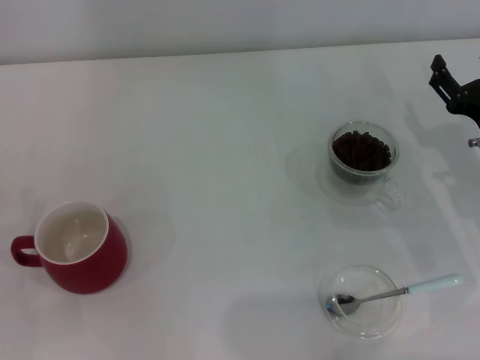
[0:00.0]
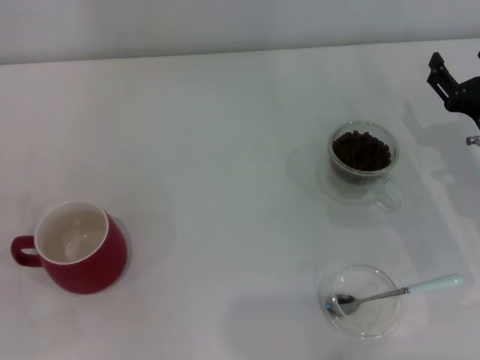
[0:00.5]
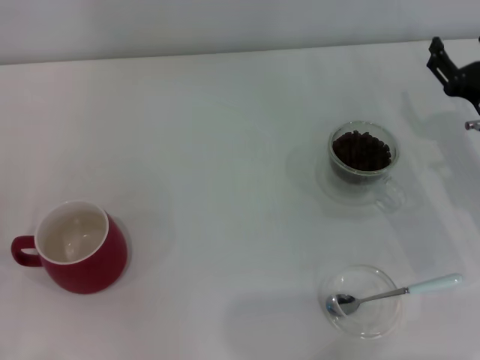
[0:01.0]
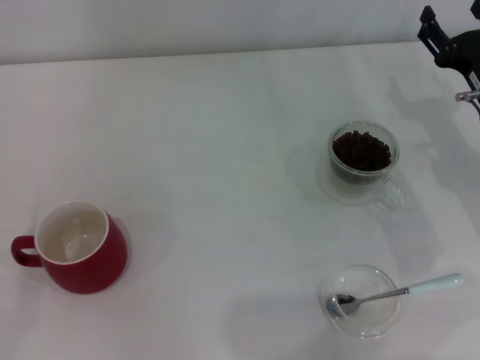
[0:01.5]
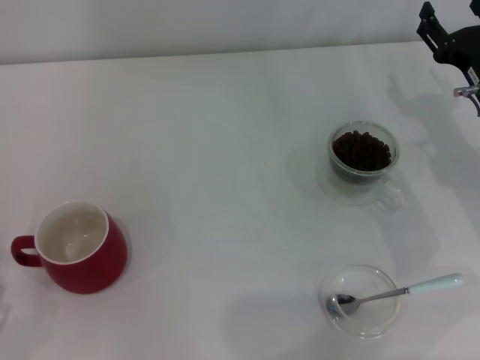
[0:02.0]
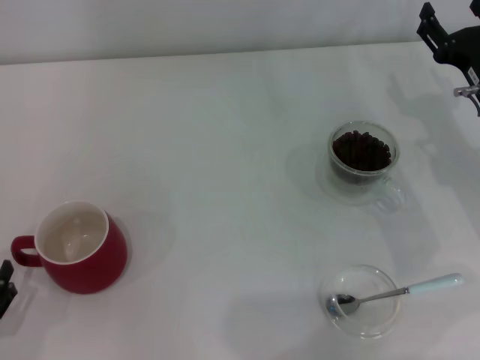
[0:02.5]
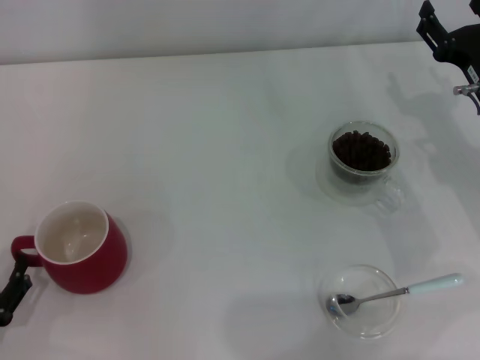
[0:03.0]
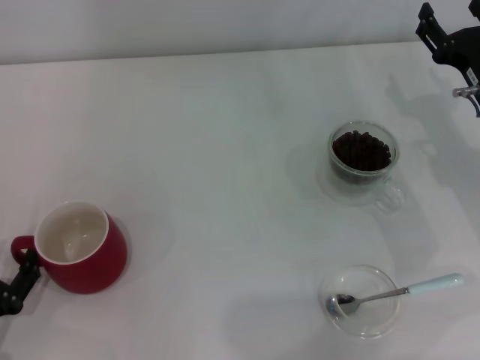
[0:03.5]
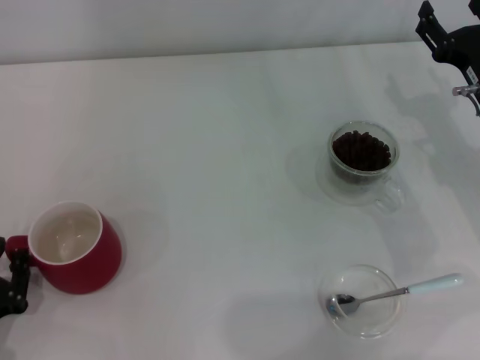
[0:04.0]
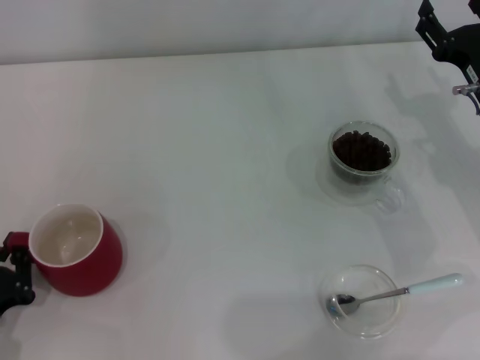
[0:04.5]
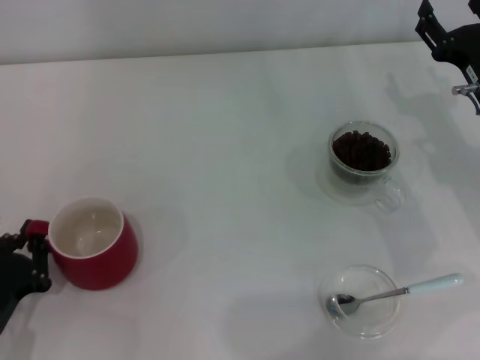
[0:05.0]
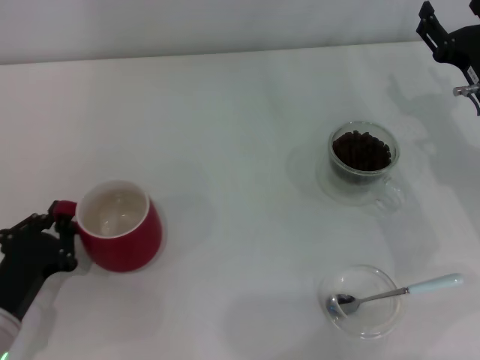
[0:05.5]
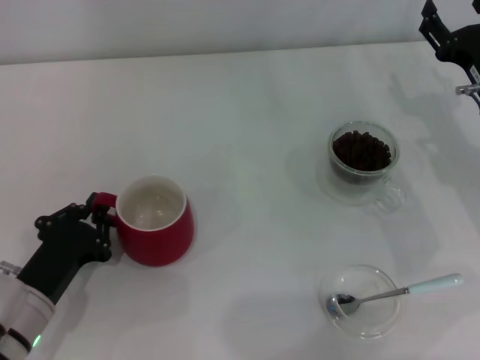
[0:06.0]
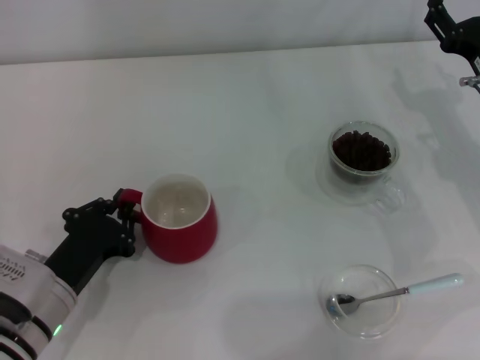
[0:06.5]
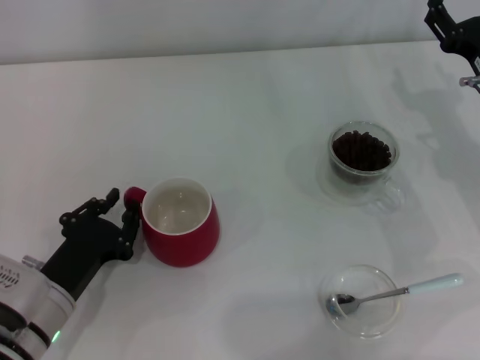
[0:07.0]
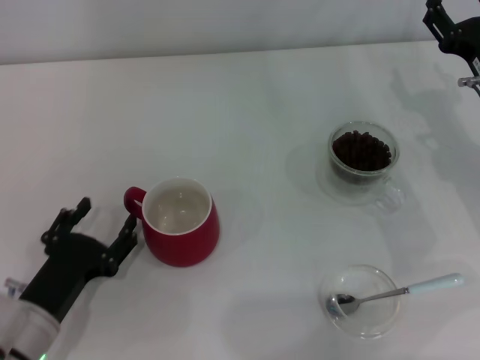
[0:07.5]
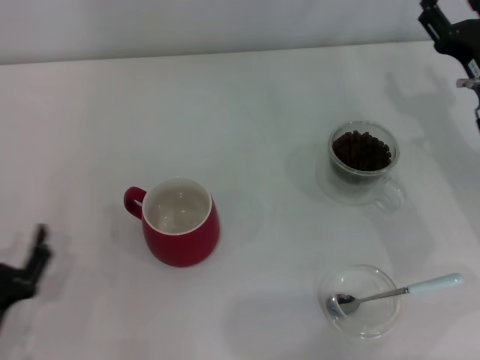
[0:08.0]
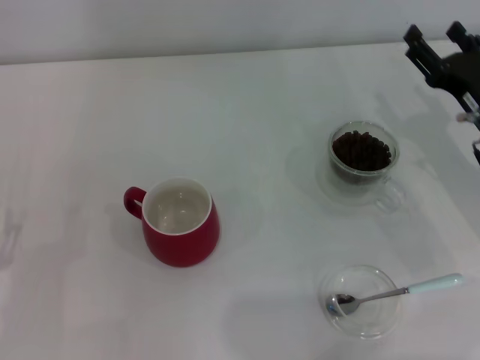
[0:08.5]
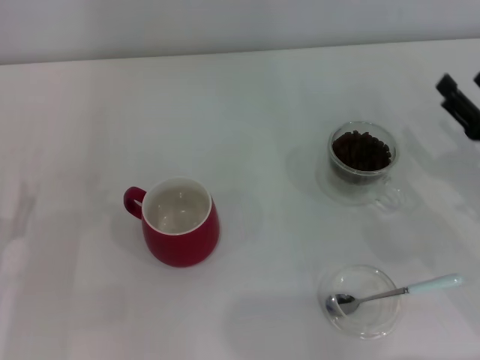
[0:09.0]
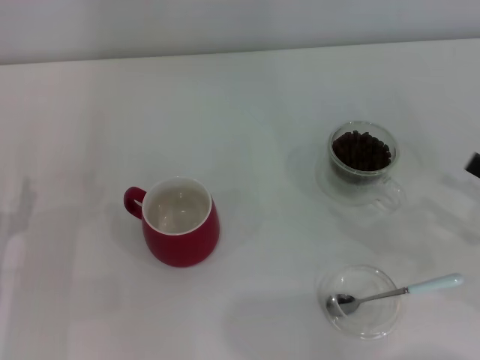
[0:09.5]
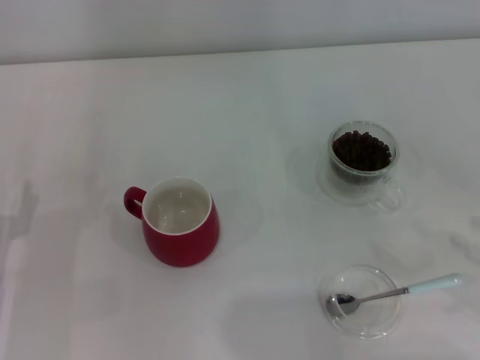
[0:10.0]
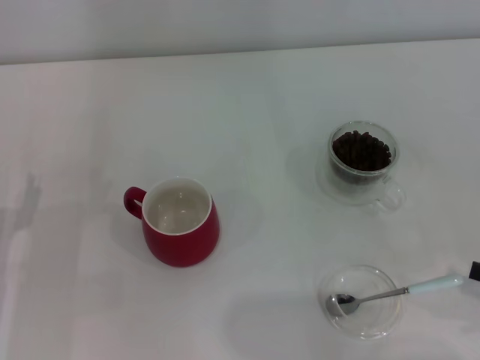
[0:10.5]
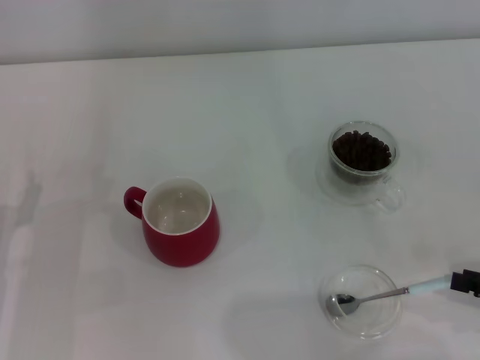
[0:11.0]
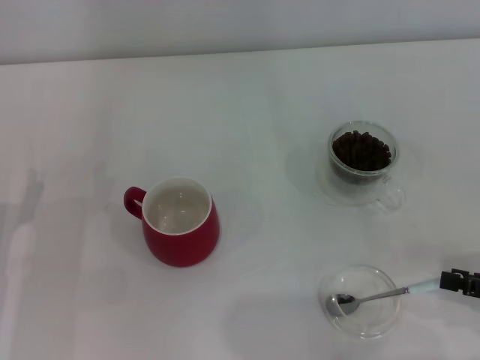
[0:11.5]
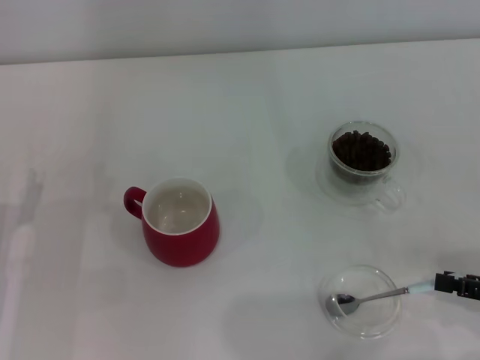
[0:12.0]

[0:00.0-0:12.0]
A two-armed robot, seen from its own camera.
Task of the whole recording: Use a blue spoon to take out the coffee beans from the glass and pour them into the red cup.
Step, 0:00.0 to 0:07.5: Move the cup to the center of view with the left gripper.
0:00.0 to 0:02.0: The right gripper moves roughly 5 cm.
0:02.0 to 0:04.0: The left gripper travels forward by about 5 cm, and closes.
0:04.0 to 0:06.0: The left gripper heads to the right and forward, covering approximately 10 cm, and closes.
0:06.0 to 0:08.0: The left gripper goes about 5 cm backward, and opens its fingers.
0:08.0 to 0:10.0: The right gripper heads backward and to the right, covering roughly 20 cm. Meanwhile the left gripper goes roughly 5 cm forward.

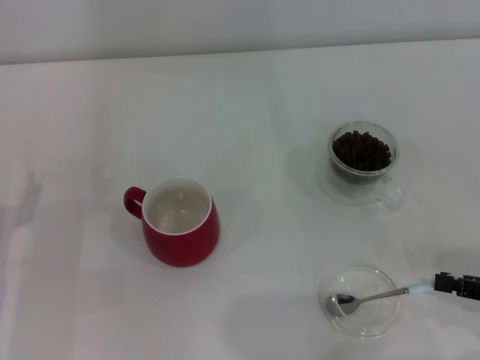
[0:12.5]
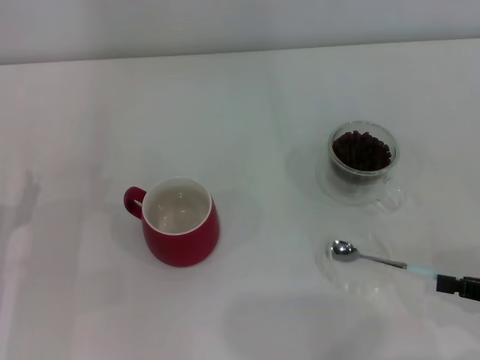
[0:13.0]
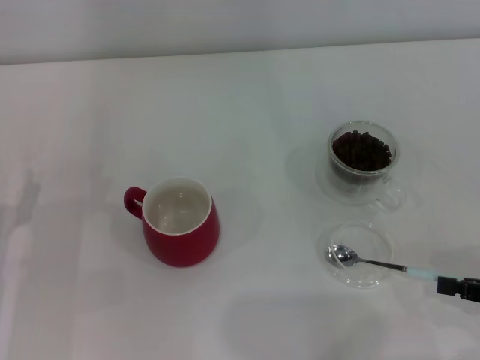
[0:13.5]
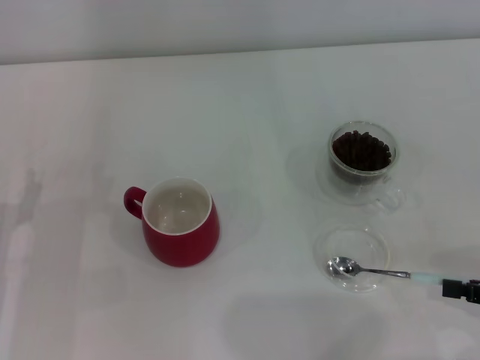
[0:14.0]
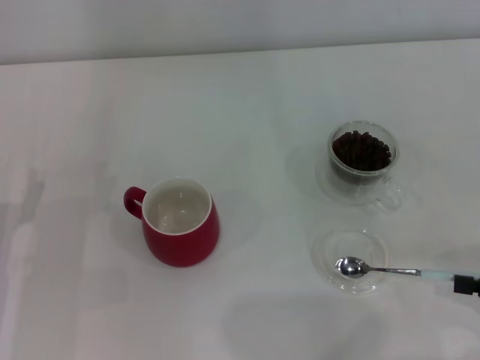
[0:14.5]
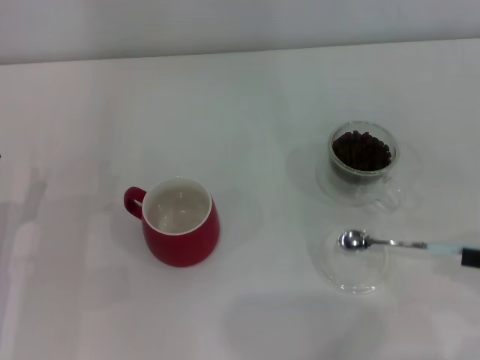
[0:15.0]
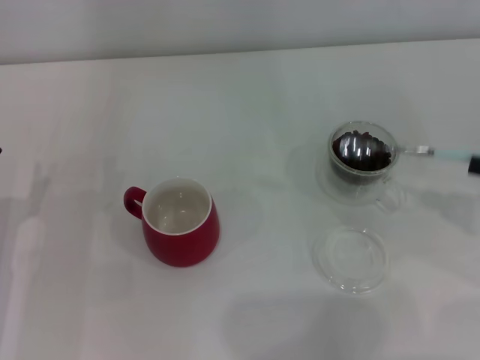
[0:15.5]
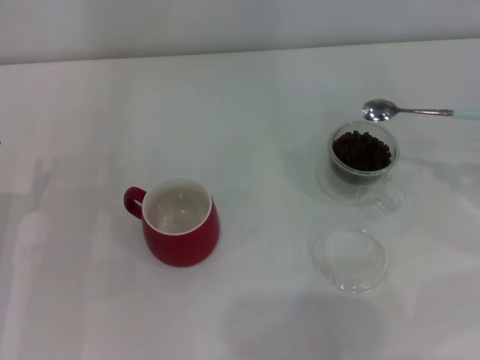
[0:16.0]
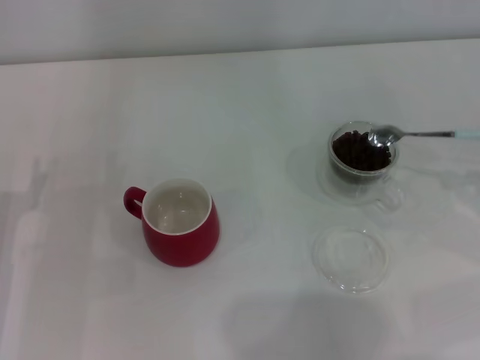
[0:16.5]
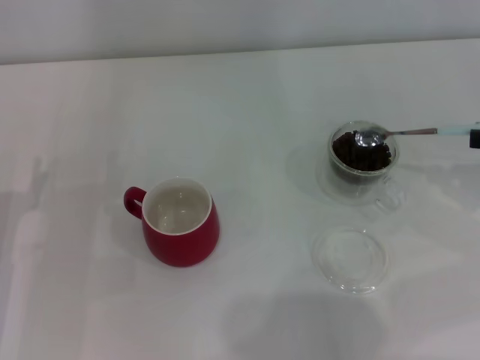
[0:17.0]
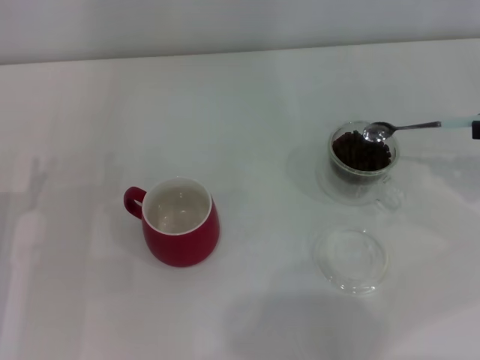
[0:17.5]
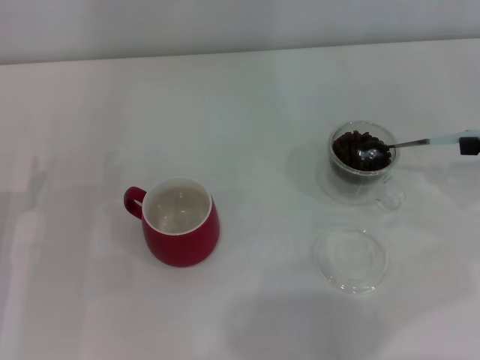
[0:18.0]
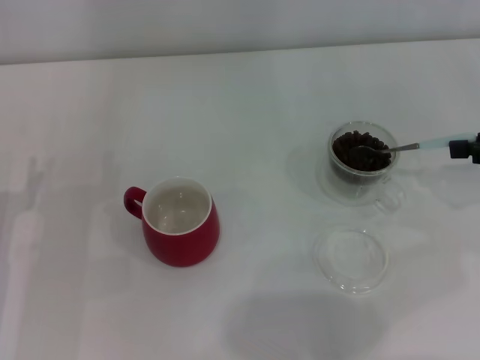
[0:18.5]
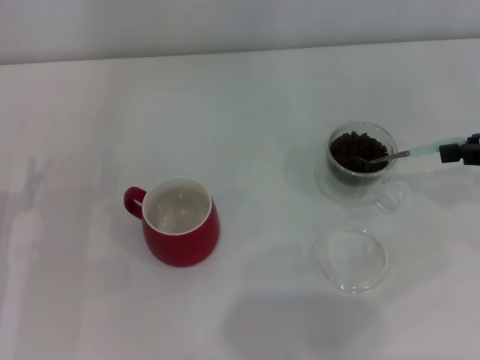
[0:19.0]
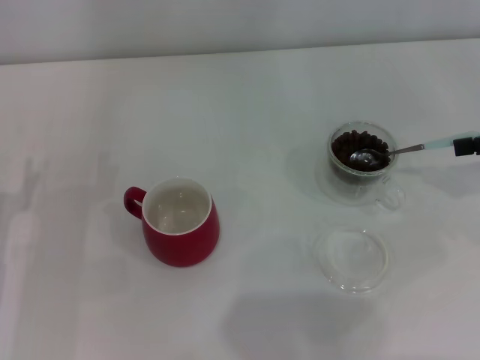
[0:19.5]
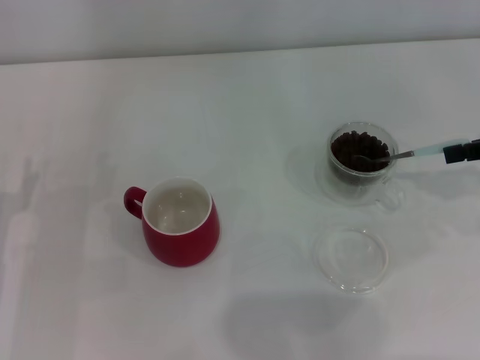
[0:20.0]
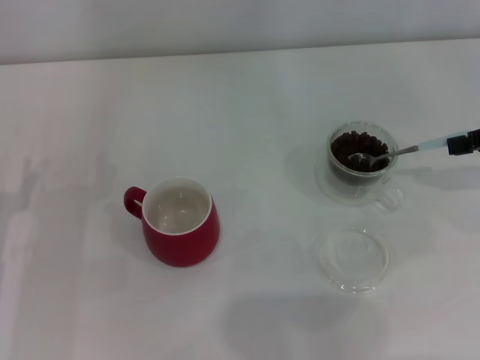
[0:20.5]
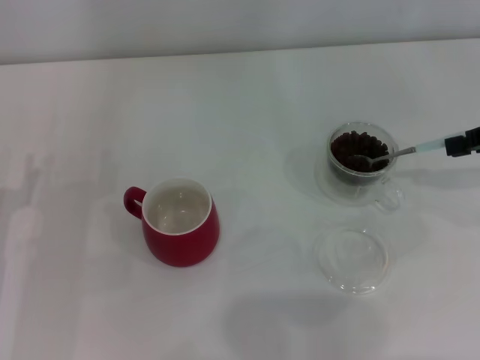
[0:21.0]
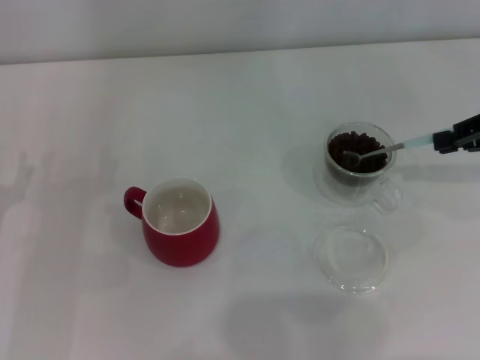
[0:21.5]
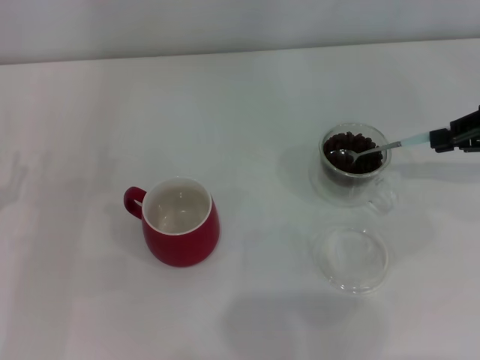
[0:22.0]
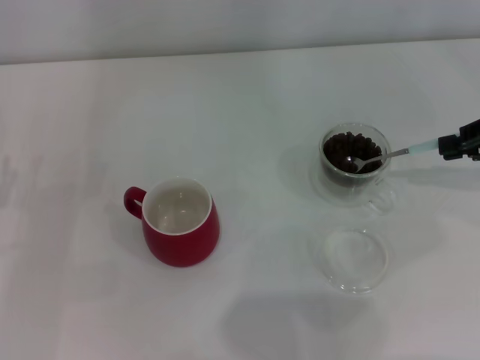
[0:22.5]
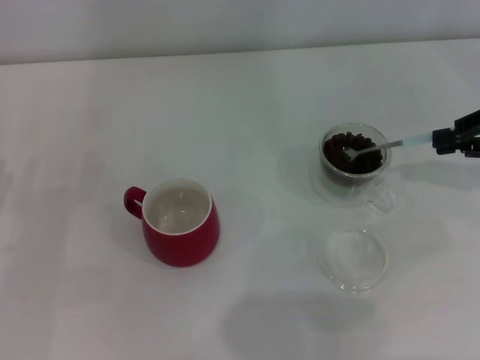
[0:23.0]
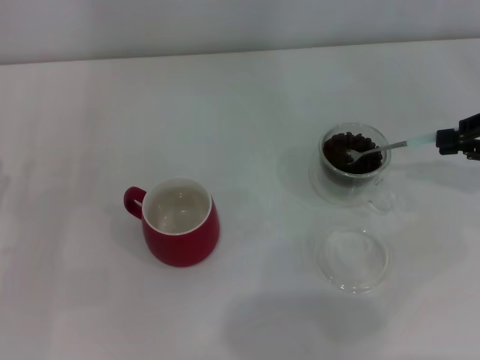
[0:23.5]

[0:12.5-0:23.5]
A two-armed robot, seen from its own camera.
Task of the whole recording: Use a blue spoon to take out the coffee beans from the glass and pour them into the red cup.
Step, 0:12.5 to 0:14.5: Pick up the spoon with the right gripper.
0:12.5 to 0:14.5: The grippers move only a little.
0:14.5 to 0:16.0: The right gripper moves forward and upward, some 10 cm.
0:16.0 to 0:18.0: The grippers stay close to where they were, moving slightly.
0:21.5 to 0:23.5: The grippers move only a little.

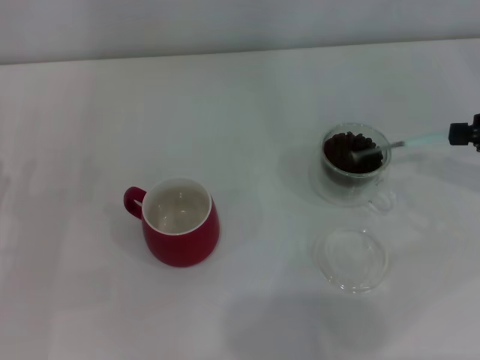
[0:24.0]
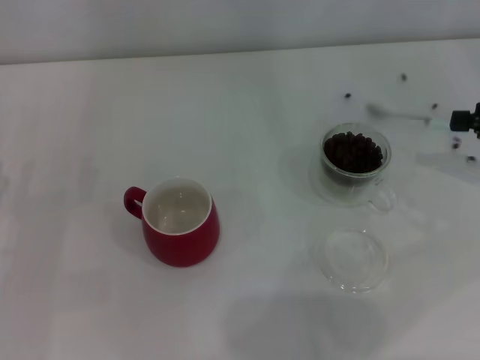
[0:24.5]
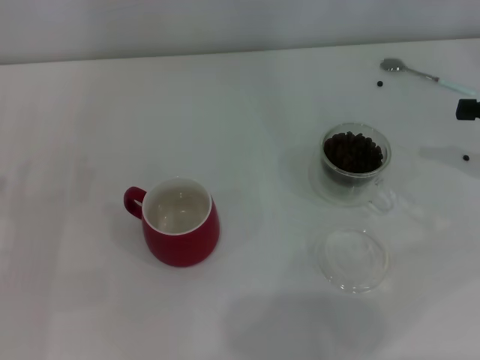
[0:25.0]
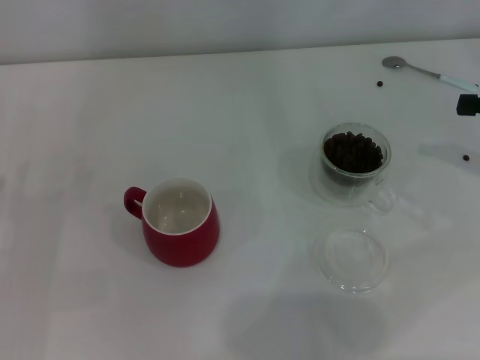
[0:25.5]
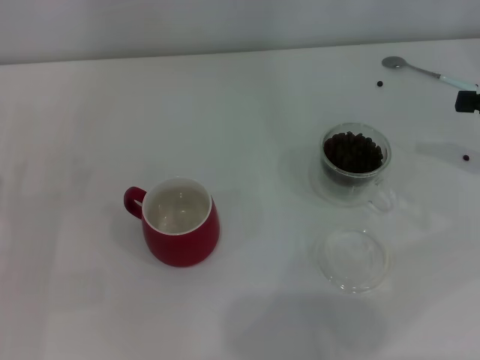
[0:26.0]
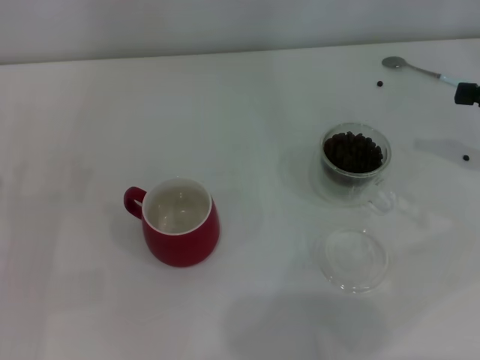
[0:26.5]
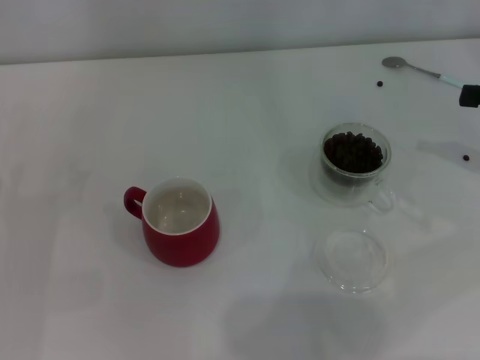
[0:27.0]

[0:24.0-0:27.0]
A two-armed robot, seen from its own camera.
Task of the whole recording: Use a blue spoon to take out the coffee beans from the glass and pour them into the red cup.
0:24.0 to 0:25.5: The grippers stay close to where they were, moving slightly.
0:25.5 to 0:27.0: Both grippers stay about where they are.
